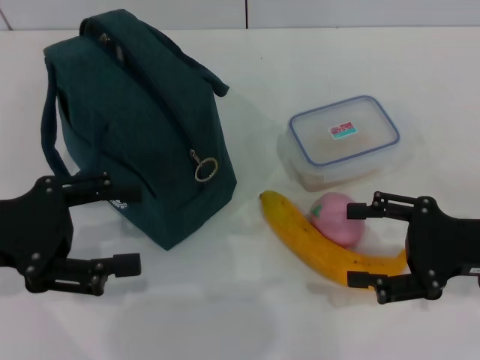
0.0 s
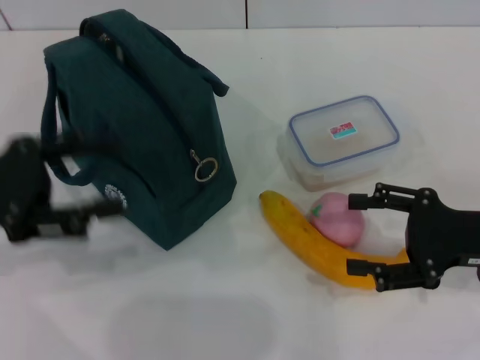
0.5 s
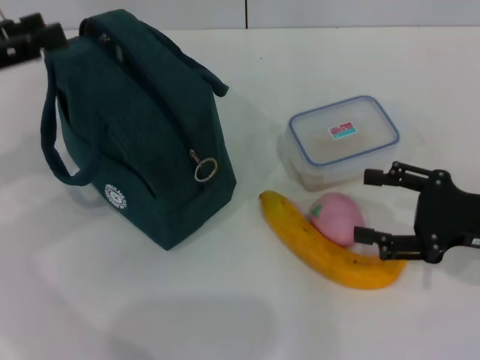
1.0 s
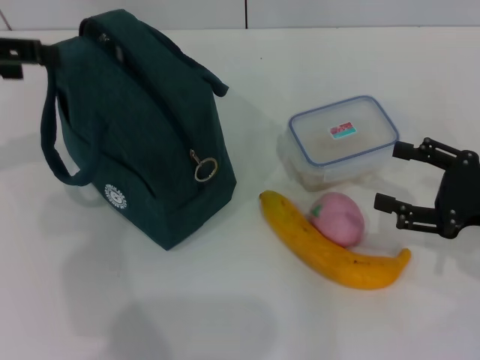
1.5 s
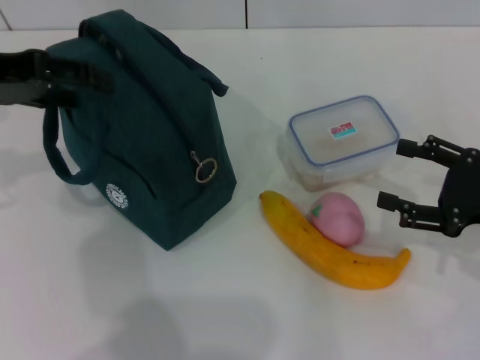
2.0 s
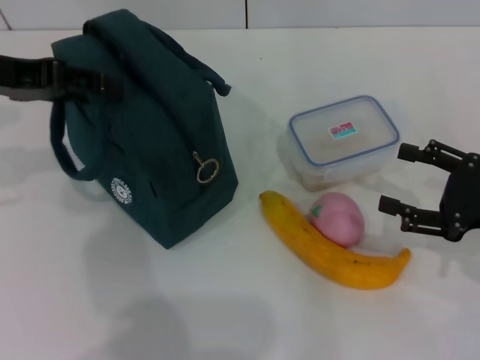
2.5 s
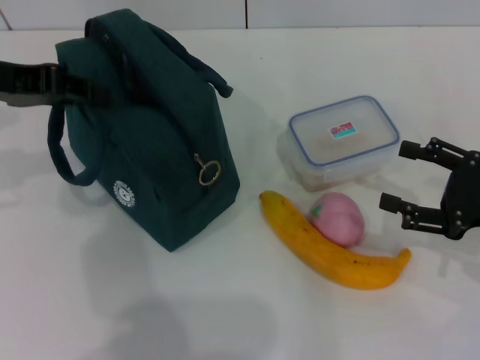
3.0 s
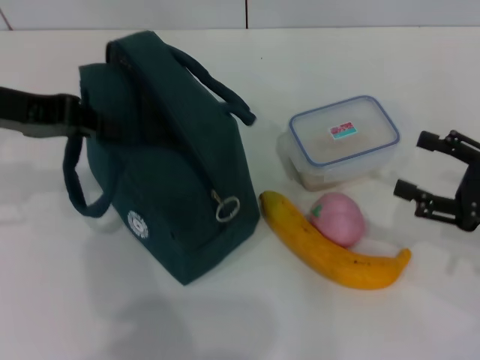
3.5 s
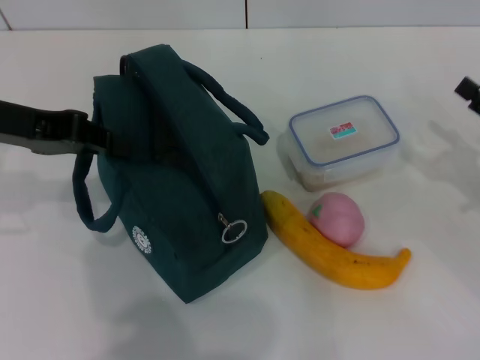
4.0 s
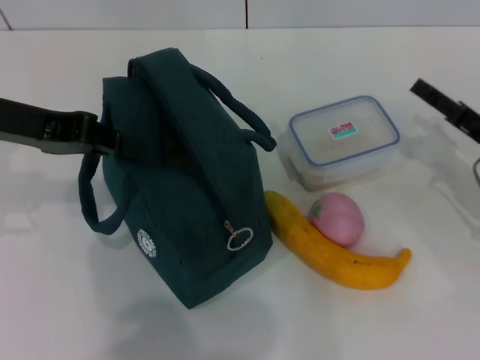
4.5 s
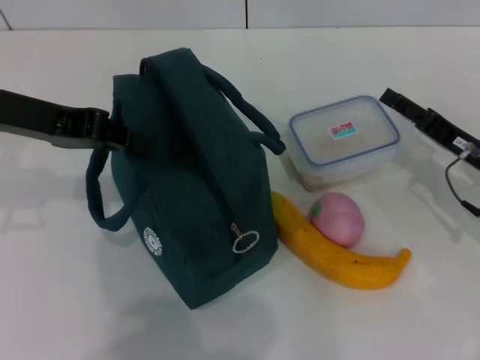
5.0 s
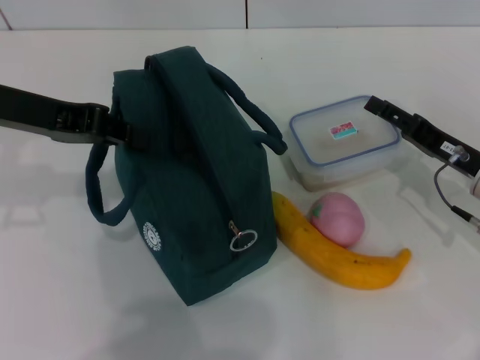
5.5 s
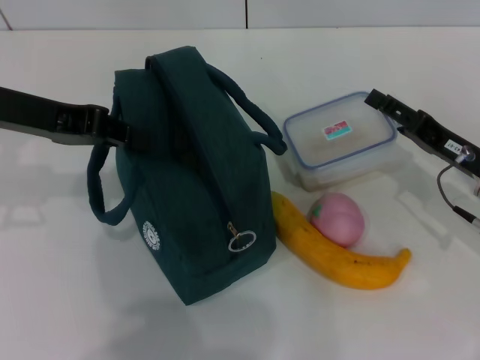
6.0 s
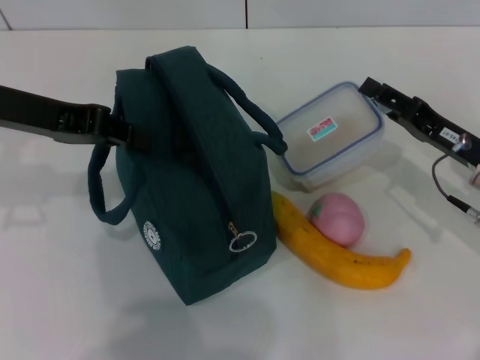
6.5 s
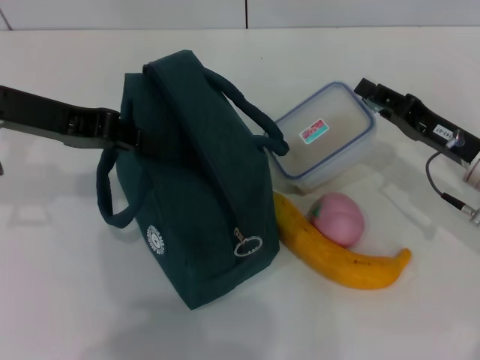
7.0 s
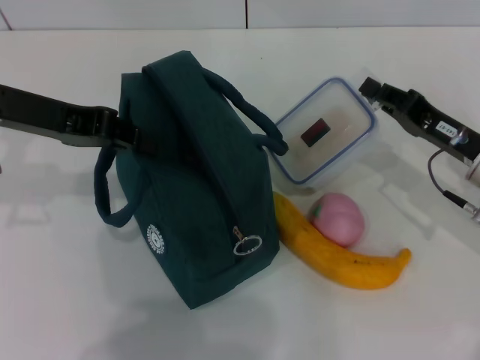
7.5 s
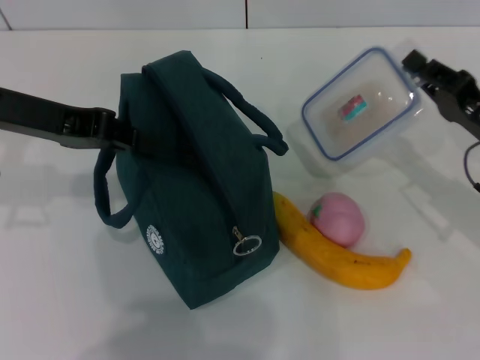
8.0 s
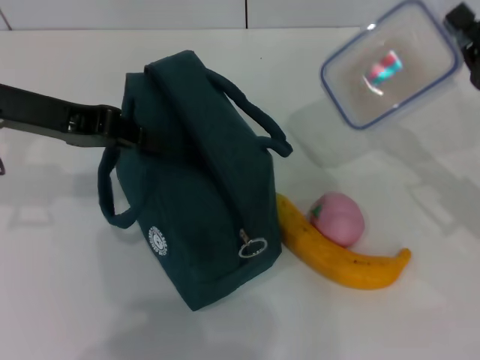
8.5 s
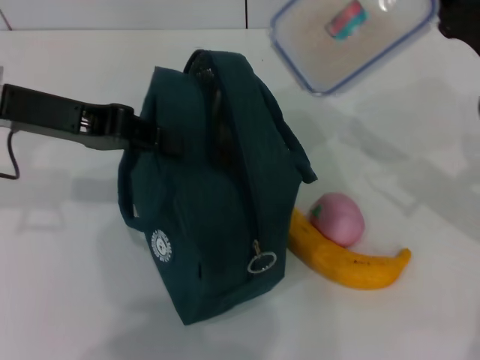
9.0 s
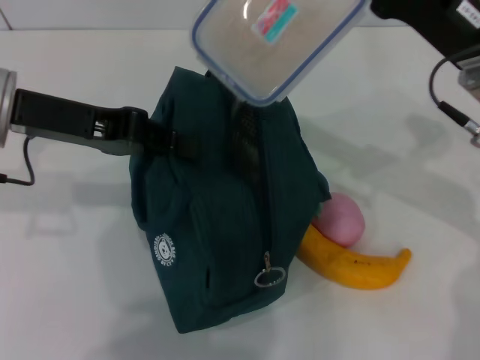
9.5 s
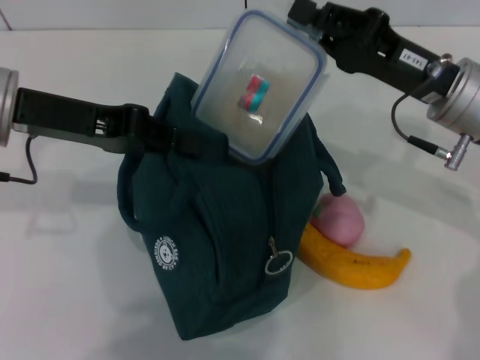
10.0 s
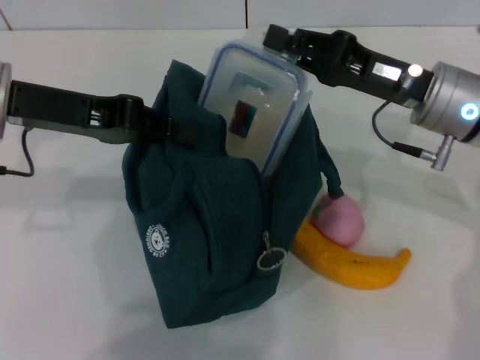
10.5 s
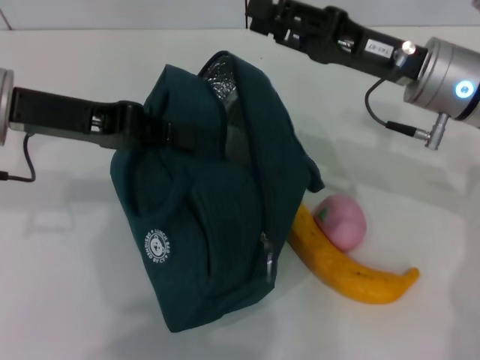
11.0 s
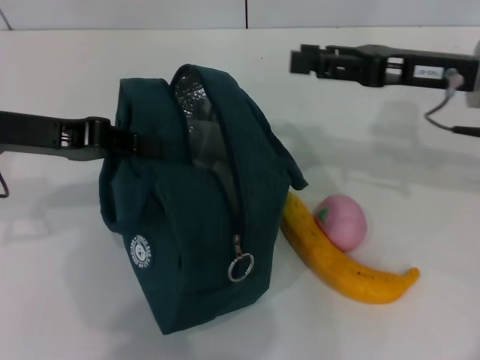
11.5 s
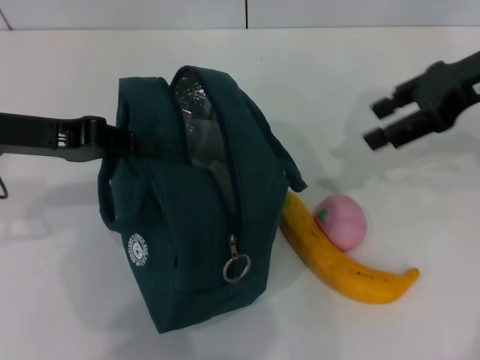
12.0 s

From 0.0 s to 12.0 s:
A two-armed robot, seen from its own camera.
Step, from 0.0 s to 3.0 s: Hold the lunch bag with your left hand.
Step, from 3.5 s to 7.0 s: Pick up the lunch box with your right hand.
Step, from 7.5 s to 11.0 s: Place the lunch box into the lunch bag with your right hand.
From 0.0 s to 2.0 s: The left gripper travels forward and upward by about 15 cm.
From 2.0 s to 4.0 s: The left gripper closes up.
From 4.0 s to 6.0 s: The right gripper is displaced to the left by roughly 10 cm.
From 6.0 s to 8.0 s: The right gripper closes its fingers.
From 8.0 s to 10.0 s: The right gripper travels to the left and upward by roughly 10 cm.
From 10.0 s to 12.0 s: The right gripper shifts approximately 10 cm upward, and opens.

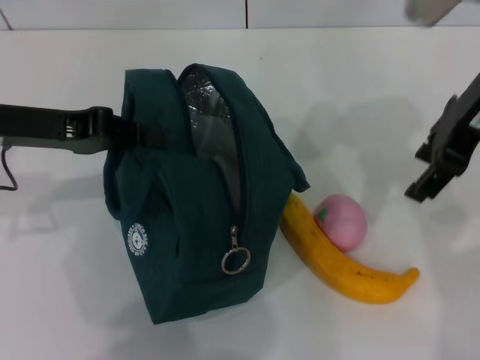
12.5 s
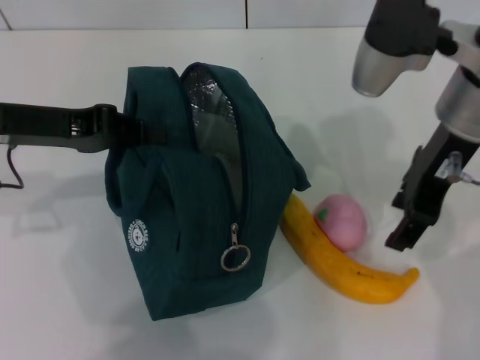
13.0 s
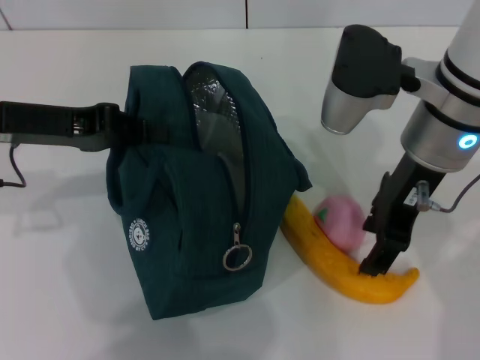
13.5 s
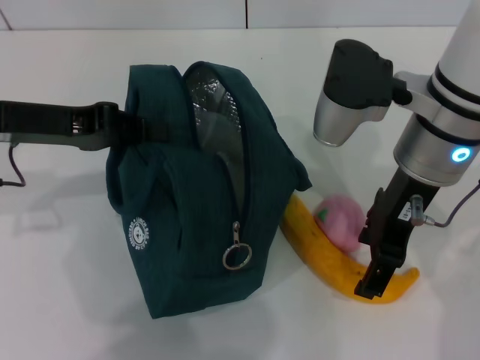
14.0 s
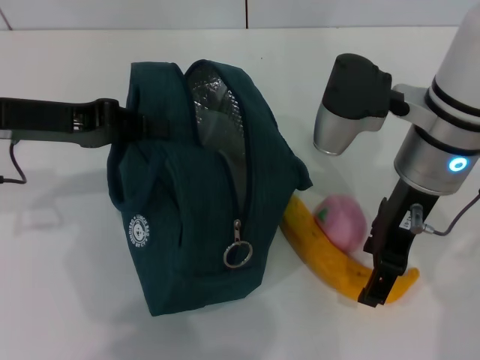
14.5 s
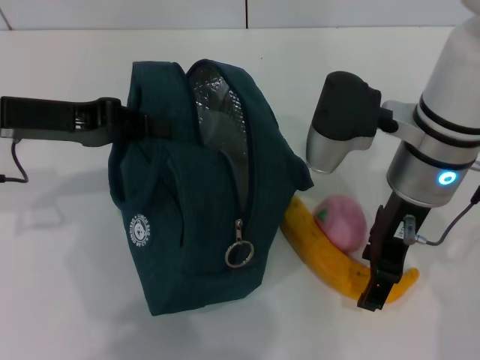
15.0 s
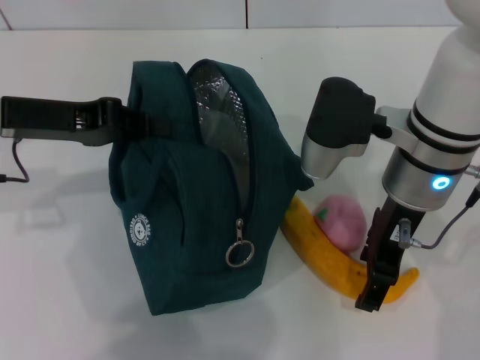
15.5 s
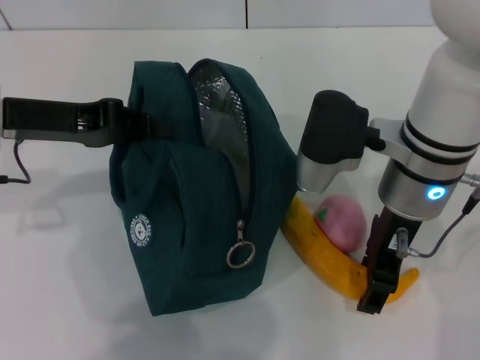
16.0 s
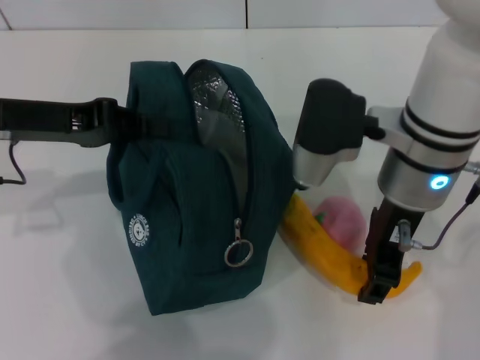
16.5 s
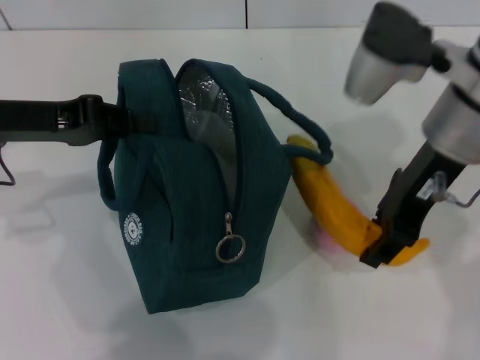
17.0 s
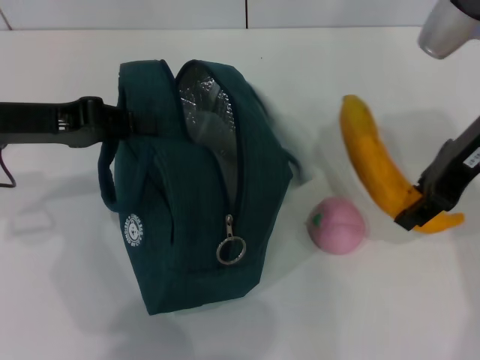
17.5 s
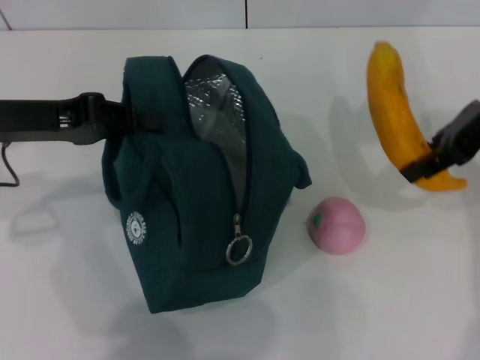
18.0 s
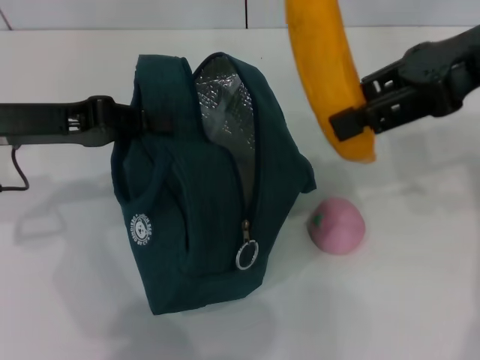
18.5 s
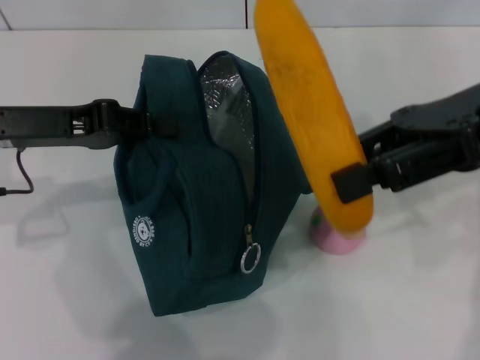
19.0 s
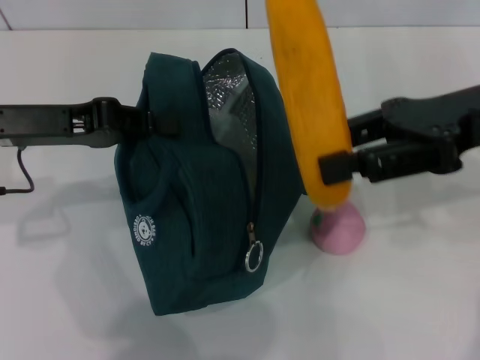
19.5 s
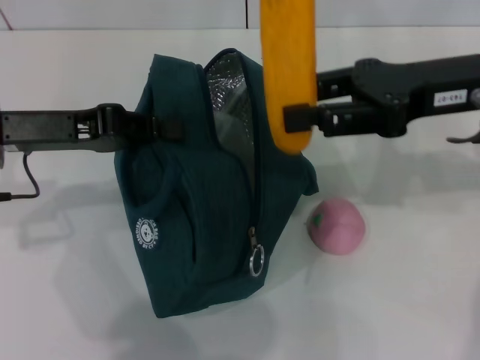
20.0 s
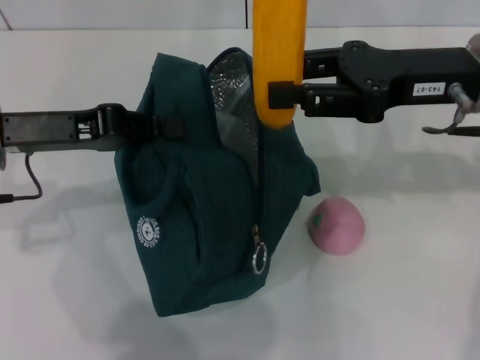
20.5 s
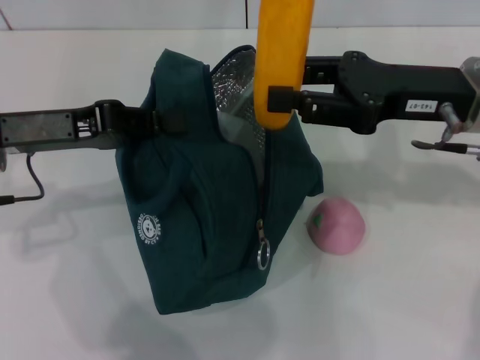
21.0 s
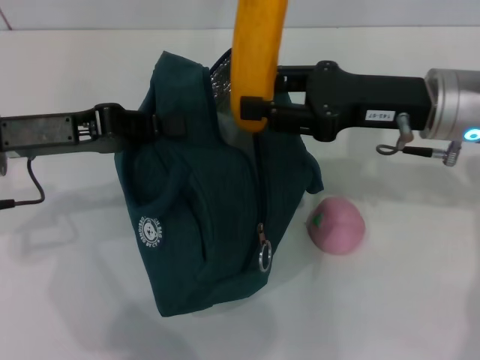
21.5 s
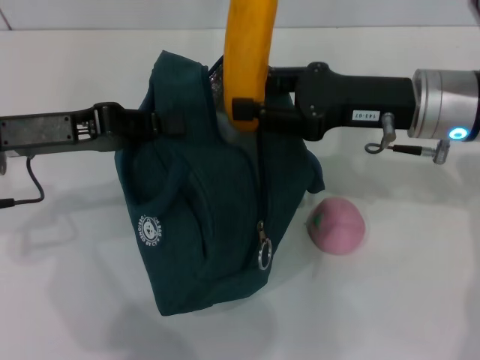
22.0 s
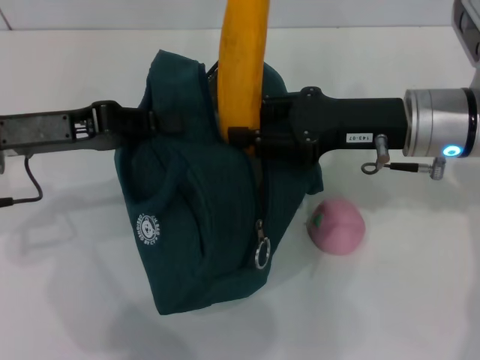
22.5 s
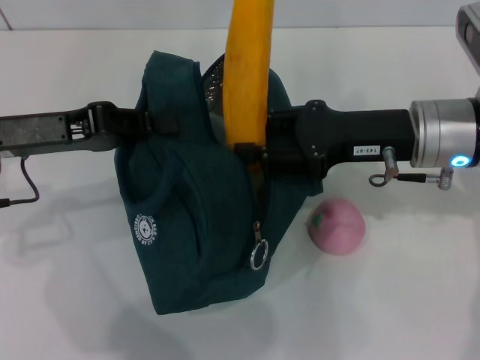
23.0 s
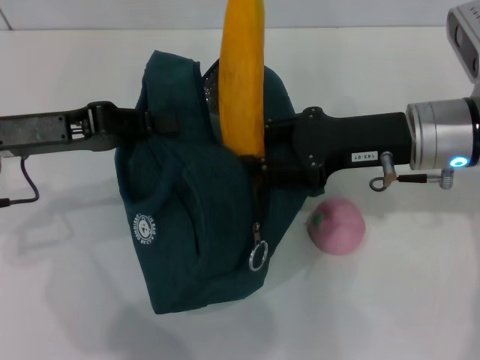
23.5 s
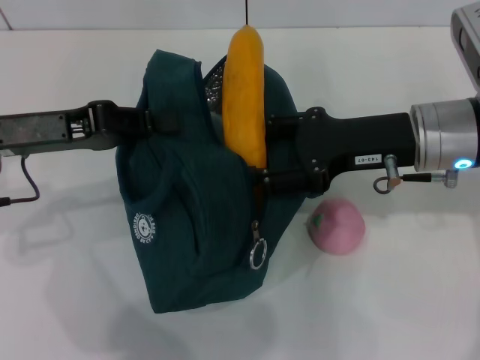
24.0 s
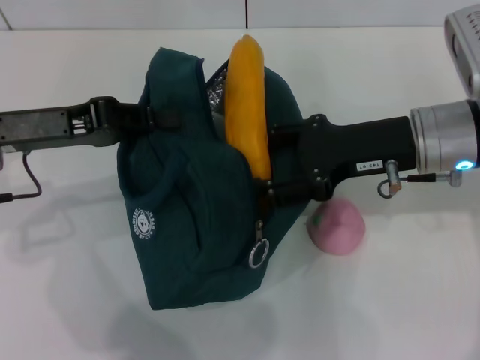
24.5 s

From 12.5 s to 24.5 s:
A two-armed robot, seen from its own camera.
Step, from 12.5 s to 16.0 s: Take the banana with your right hand.
From 12.5 s to 14.5 s: The right gripper goes about 10 cm downward and to the left.
From 14.5 s to 16.5 s: The right gripper closes its fingers.
From 16.5 s to 18.5 s: The right gripper shifts some 15 cm upward and to the right.
From 18.5 s to 20.5 s: The right gripper travels downward by about 10 cm.
From 20.5 s to 22.5 s: The right gripper shifts roughly 5 cm downward.
From 22.5 s to 24.5 s: The grippers stay close to where they were, moving slightly.

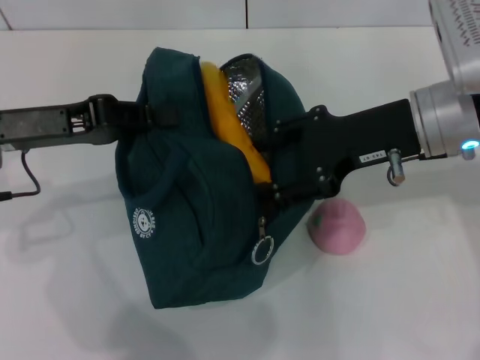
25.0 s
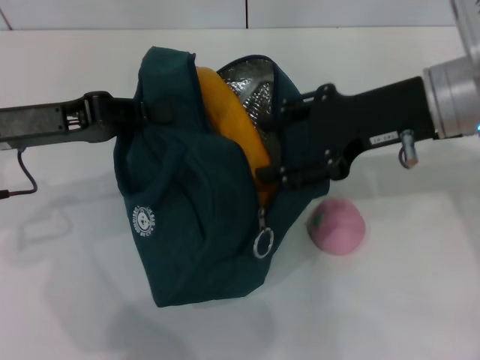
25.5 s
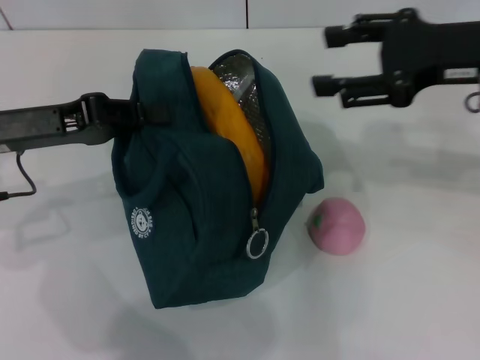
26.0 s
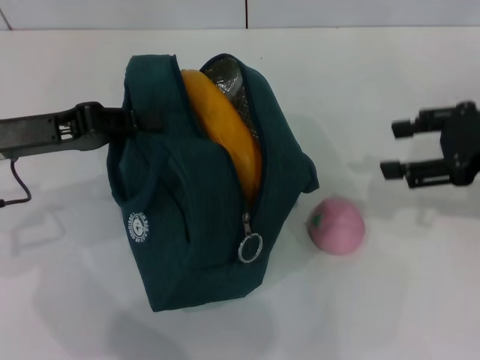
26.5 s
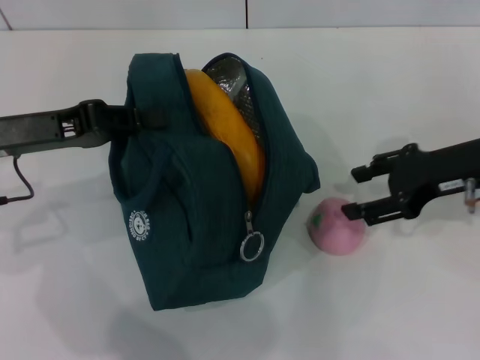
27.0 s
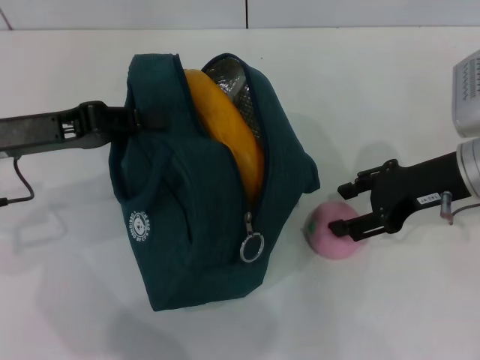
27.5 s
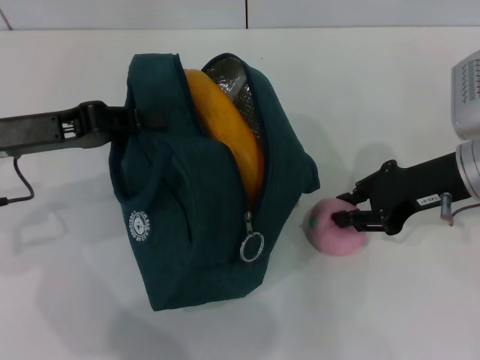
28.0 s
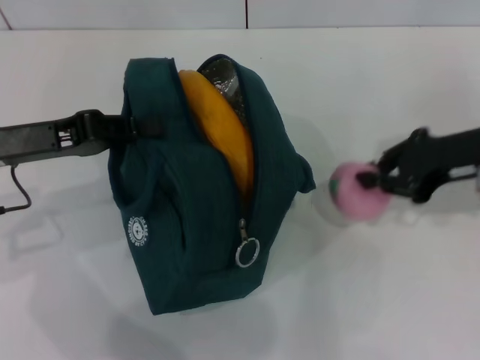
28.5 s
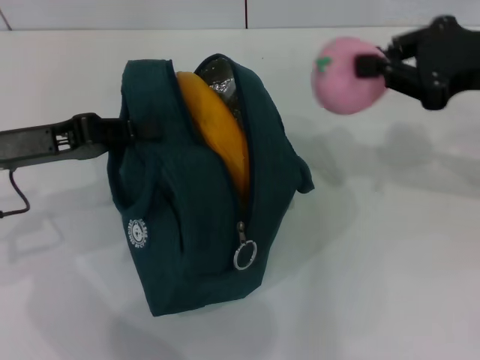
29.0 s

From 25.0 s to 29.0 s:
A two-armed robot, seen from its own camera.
Step, from 26.0 s to 27.5 s: Grab the peach with your right hand.
From 25.0 s to 27.0 s: The right gripper heads to the right, covering some 10 cm.
From 27.0 s to 29.0 s: The right gripper goes roughly 10 cm upward, and closes.
